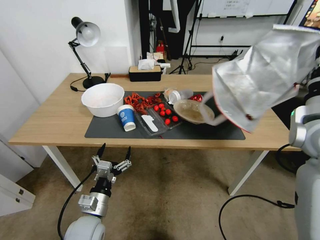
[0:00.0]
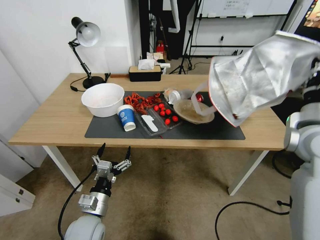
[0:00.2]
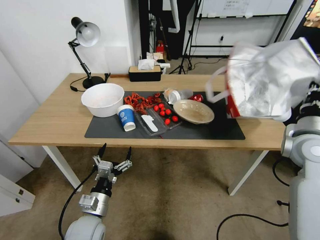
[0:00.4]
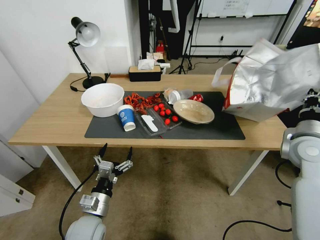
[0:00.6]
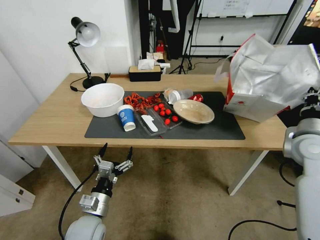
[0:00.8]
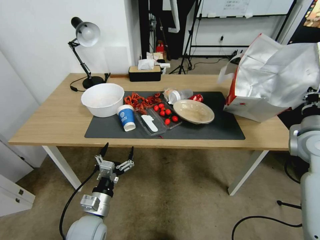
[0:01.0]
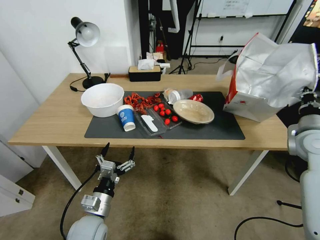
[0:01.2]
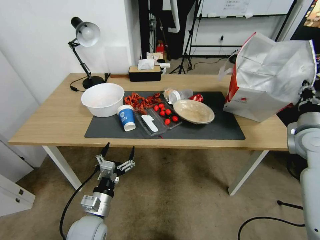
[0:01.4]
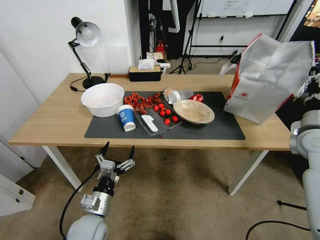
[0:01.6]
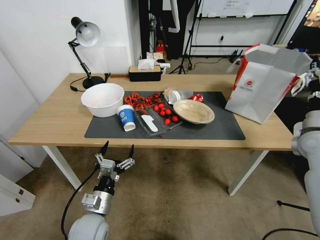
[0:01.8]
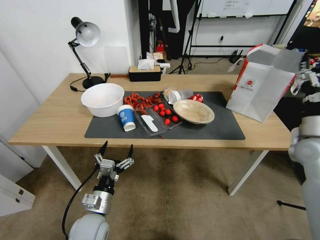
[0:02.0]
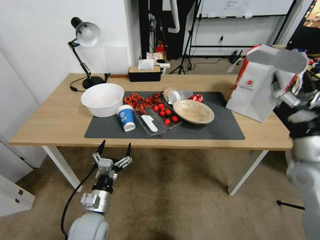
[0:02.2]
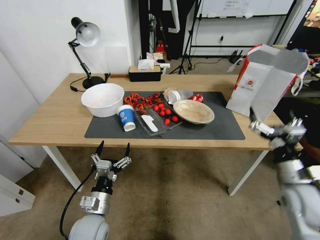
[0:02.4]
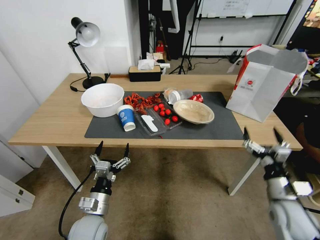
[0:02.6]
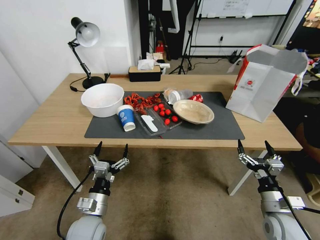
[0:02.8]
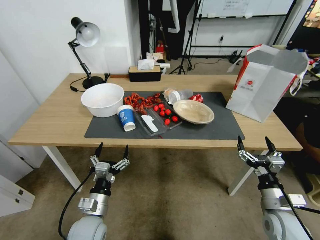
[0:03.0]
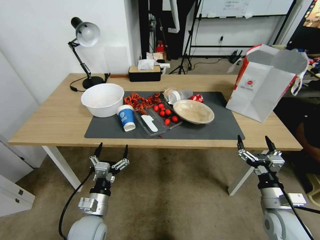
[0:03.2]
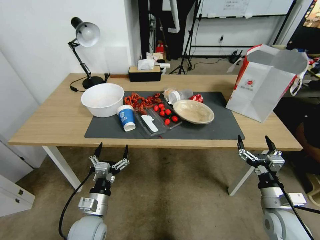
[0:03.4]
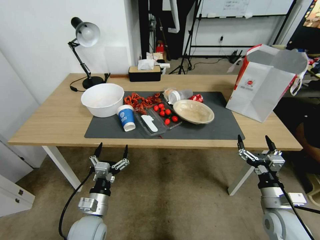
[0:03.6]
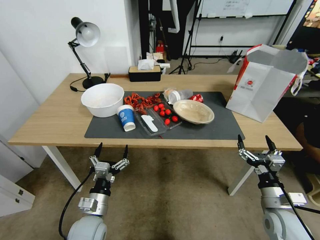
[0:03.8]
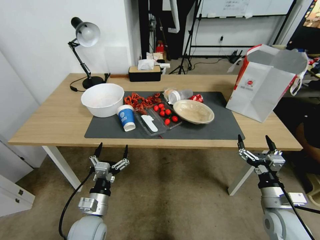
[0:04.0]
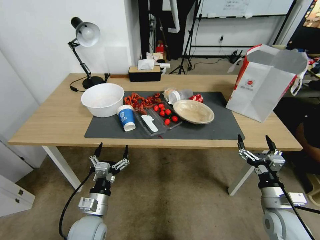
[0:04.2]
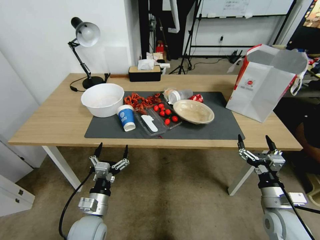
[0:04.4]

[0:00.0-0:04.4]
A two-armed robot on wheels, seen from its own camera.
Task of the whole recording: Pick up the food delivery bag from the floor and place it on the table.
0:00.0 to 0:01.4: The right gripper shifts roughly 10 cm downward and to the right.
0:01.4 to 0:03.0: The right gripper travels downward, backward and to the left by approximately 25 cm, and opens up.
0:03.0 to 0:04.4: The two grippers keep their place.

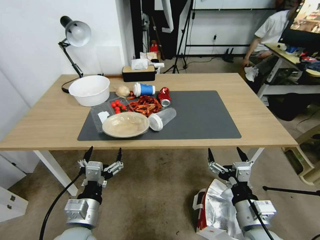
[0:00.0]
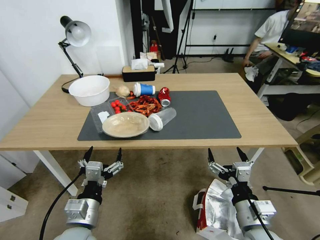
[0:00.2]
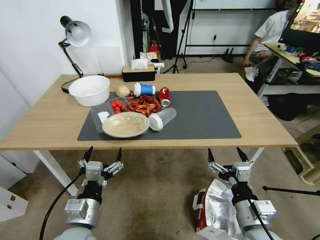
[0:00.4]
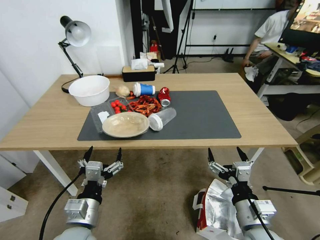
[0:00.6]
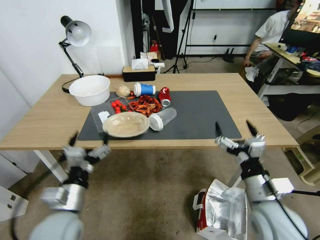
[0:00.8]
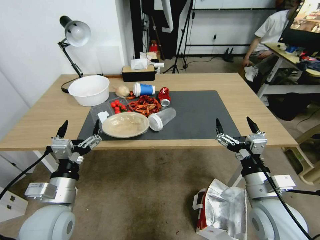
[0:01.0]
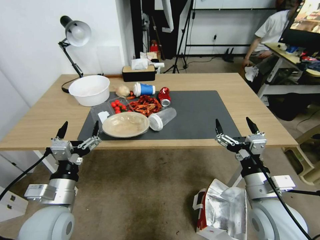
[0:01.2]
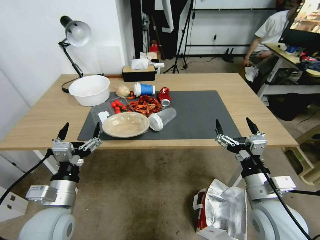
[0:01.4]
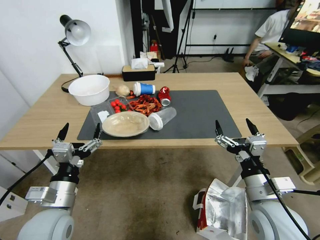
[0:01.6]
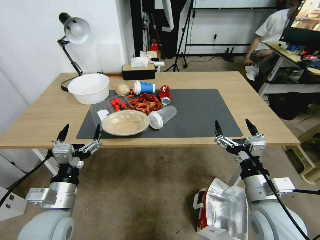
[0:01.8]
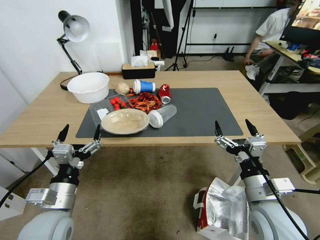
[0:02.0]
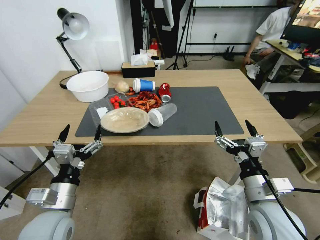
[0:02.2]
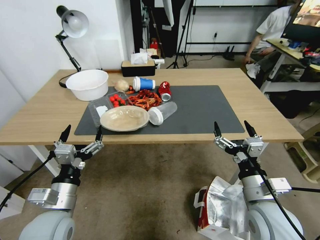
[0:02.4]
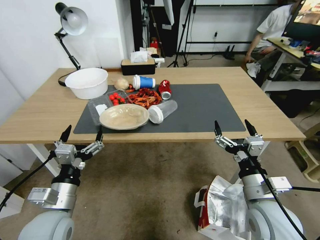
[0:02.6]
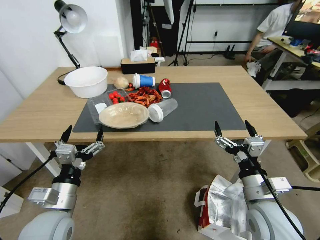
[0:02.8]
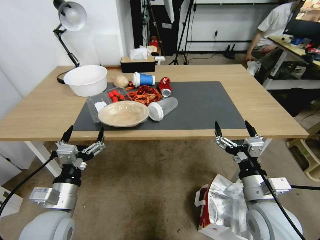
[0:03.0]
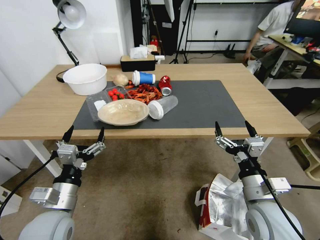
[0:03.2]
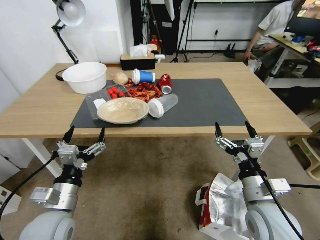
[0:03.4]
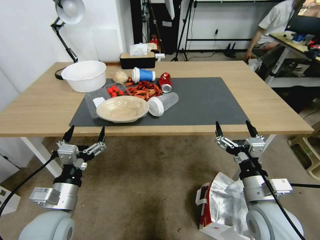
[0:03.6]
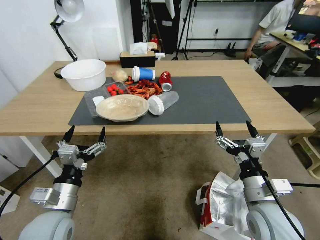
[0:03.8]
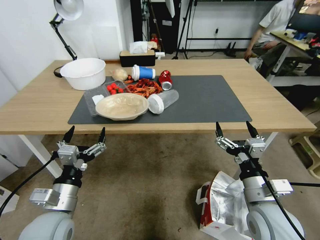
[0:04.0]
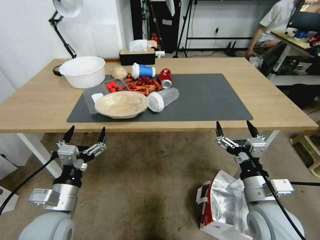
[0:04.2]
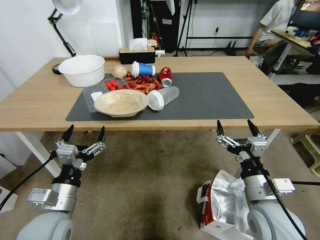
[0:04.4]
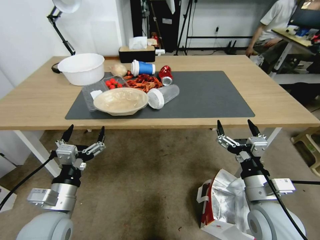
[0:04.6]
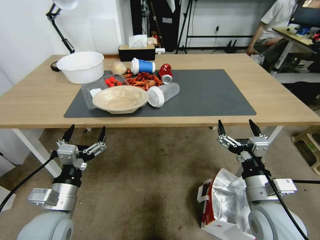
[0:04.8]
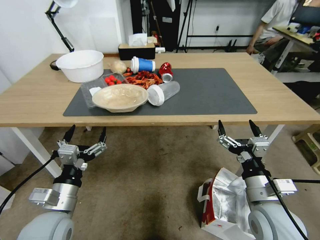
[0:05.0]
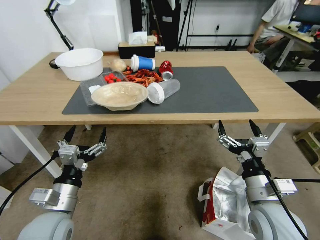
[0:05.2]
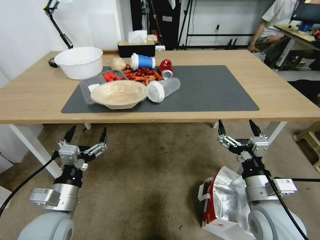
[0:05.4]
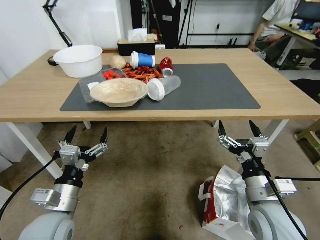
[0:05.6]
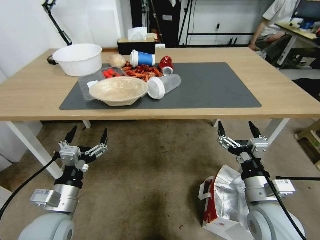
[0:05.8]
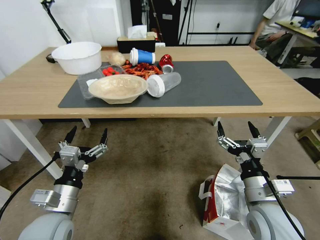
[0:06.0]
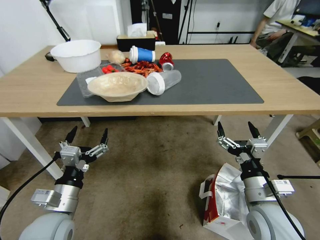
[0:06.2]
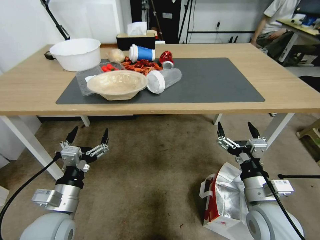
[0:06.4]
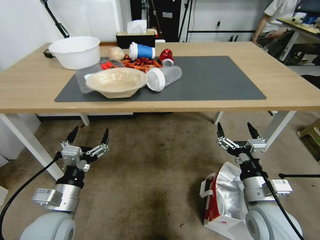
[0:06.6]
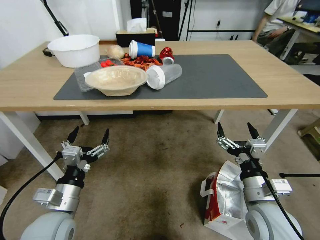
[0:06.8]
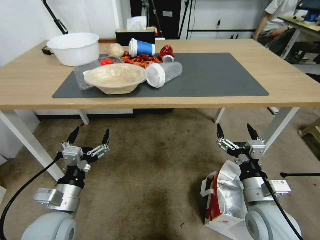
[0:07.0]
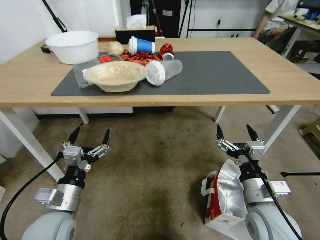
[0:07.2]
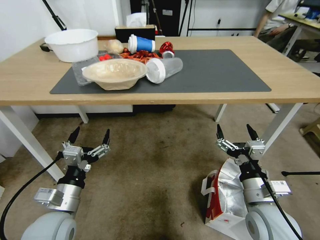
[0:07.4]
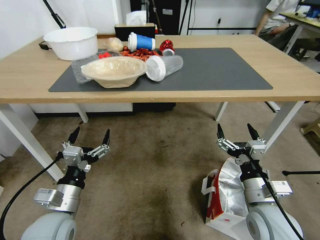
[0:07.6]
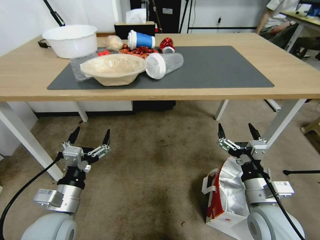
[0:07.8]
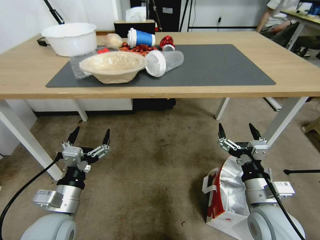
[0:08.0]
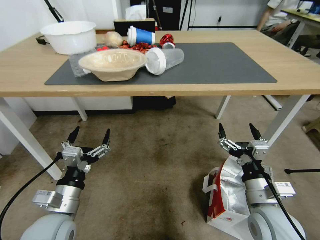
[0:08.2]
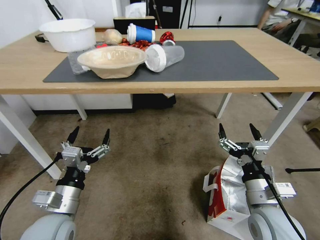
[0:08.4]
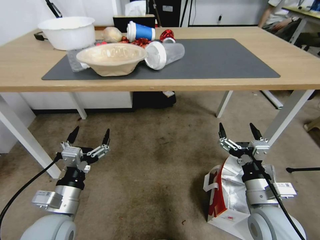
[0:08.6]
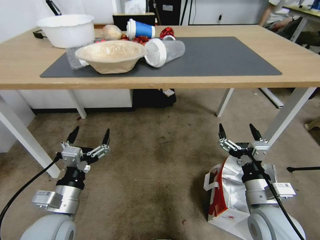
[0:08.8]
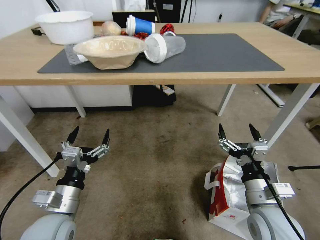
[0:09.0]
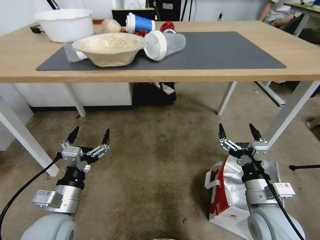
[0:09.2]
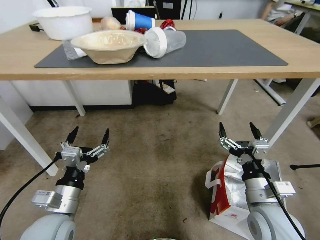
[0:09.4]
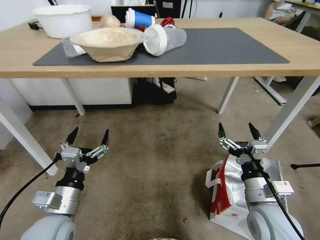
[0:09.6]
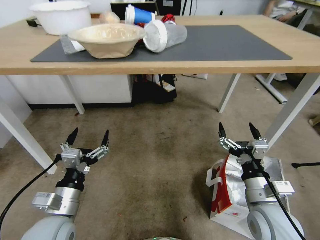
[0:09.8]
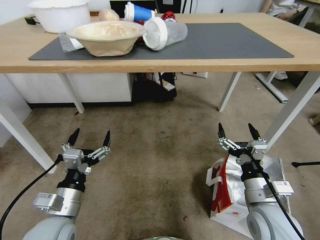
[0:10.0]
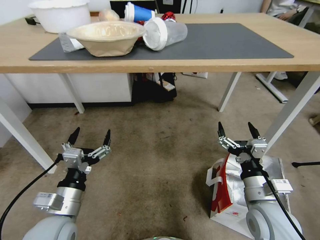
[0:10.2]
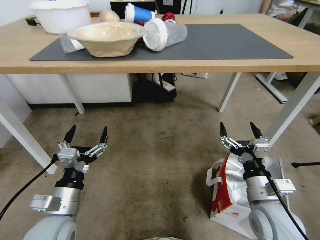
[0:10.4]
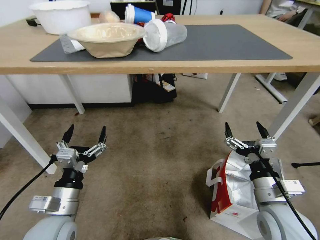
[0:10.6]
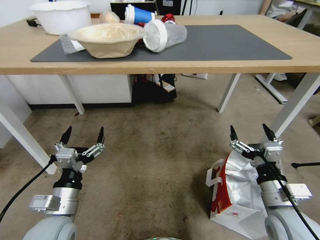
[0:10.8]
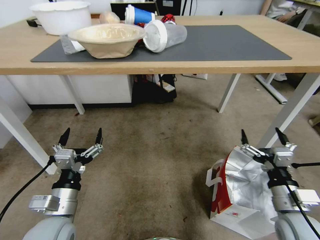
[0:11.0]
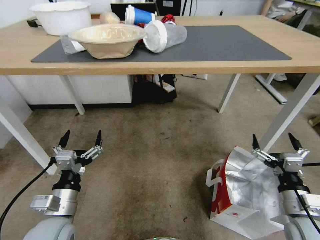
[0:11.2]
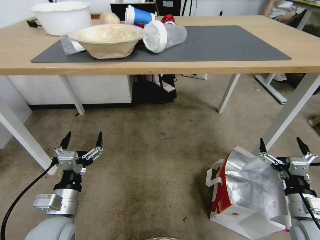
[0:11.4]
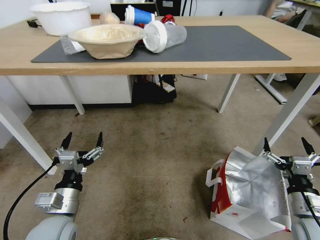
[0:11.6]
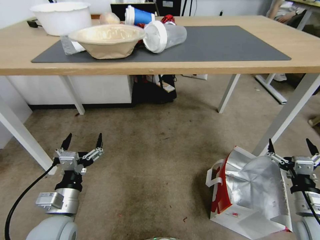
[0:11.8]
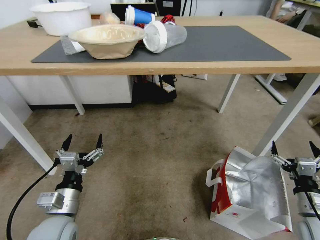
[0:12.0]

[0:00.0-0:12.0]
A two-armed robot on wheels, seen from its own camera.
Task of the whole recording: Pick up the food delivery bag from the floor and place it on the table.
0:10.4 to 0:12.0: The right gripper travels to the right and downward by some 15 cm.

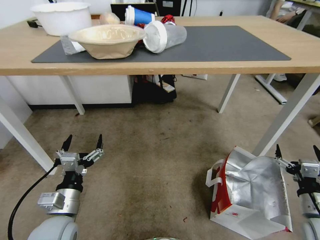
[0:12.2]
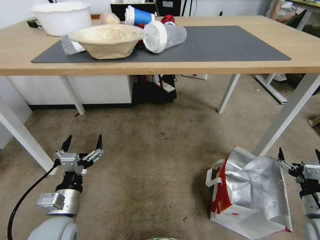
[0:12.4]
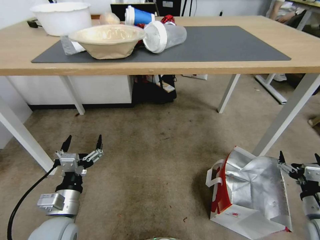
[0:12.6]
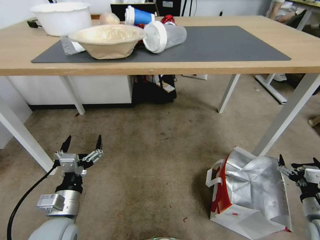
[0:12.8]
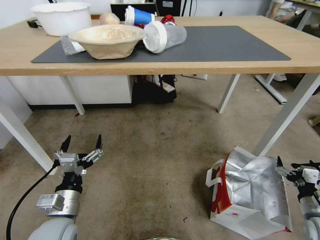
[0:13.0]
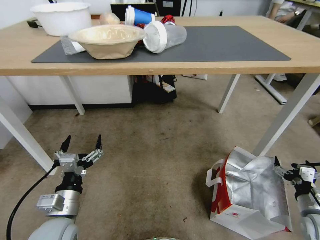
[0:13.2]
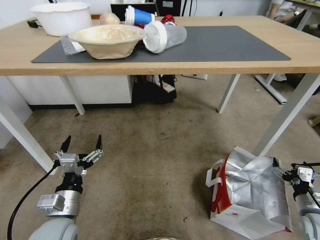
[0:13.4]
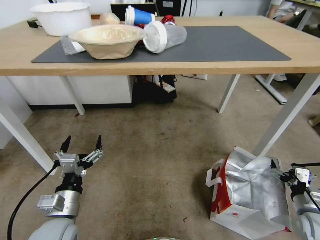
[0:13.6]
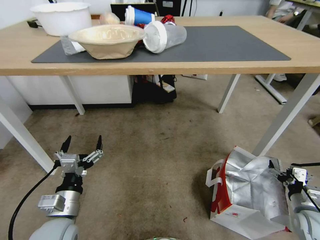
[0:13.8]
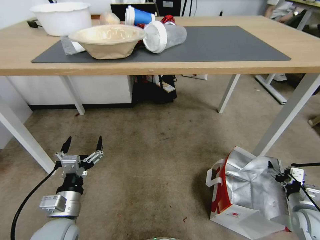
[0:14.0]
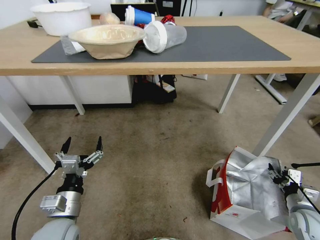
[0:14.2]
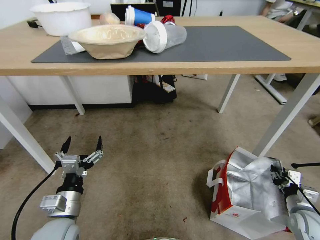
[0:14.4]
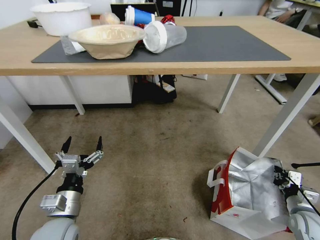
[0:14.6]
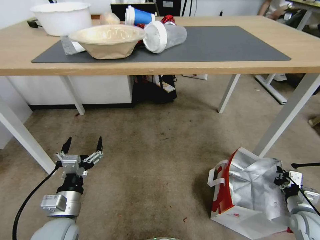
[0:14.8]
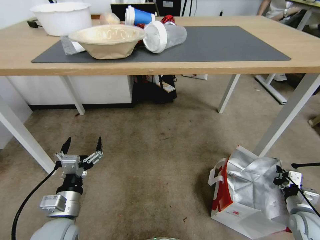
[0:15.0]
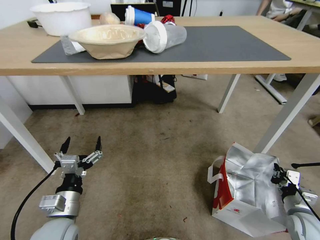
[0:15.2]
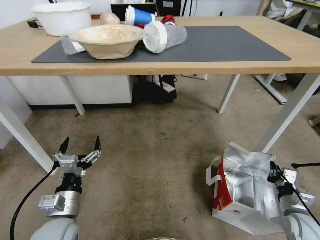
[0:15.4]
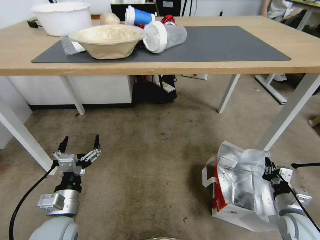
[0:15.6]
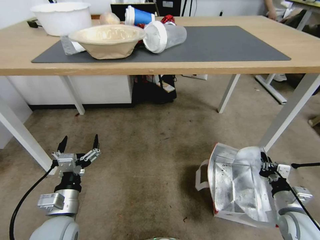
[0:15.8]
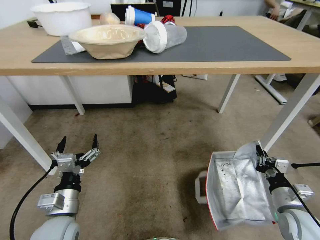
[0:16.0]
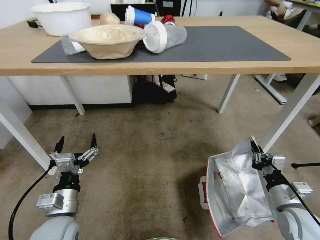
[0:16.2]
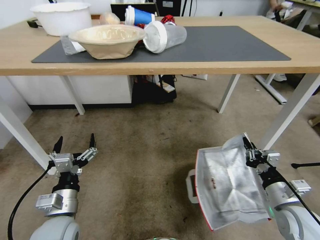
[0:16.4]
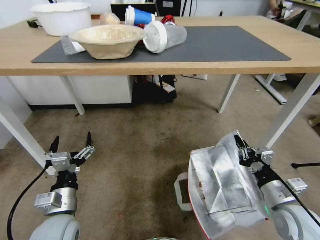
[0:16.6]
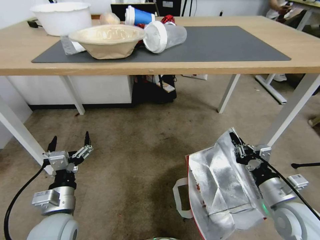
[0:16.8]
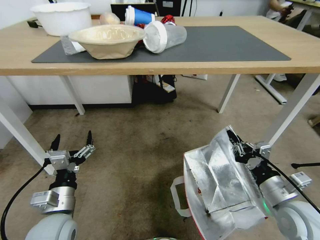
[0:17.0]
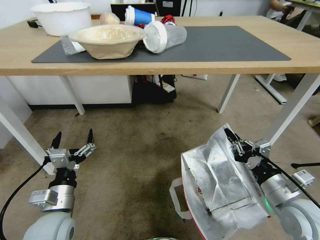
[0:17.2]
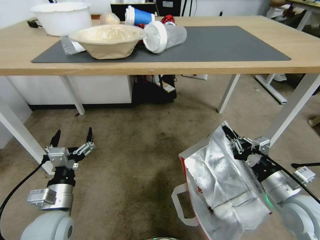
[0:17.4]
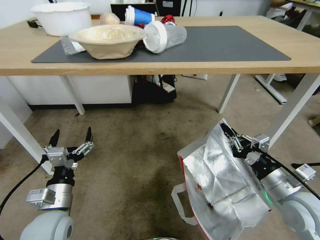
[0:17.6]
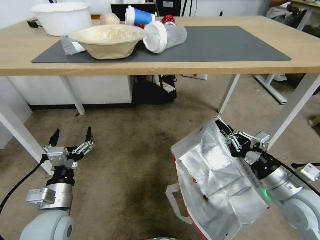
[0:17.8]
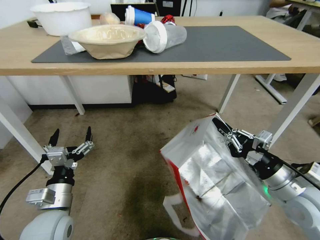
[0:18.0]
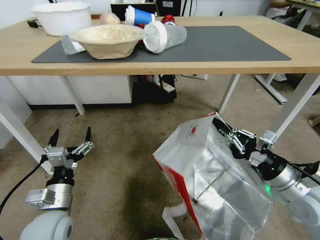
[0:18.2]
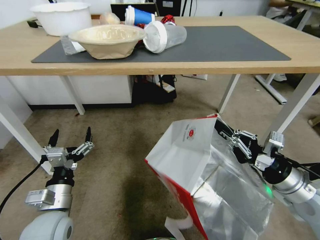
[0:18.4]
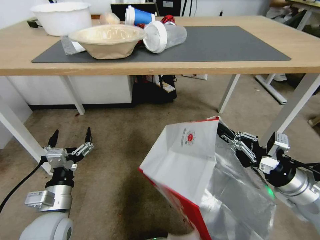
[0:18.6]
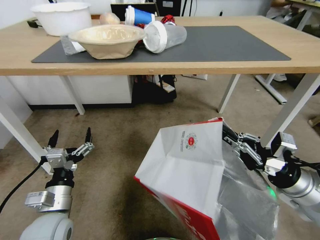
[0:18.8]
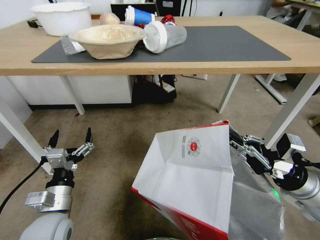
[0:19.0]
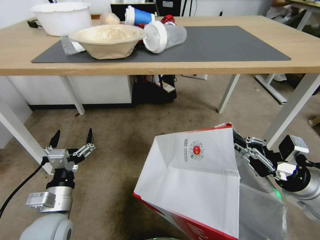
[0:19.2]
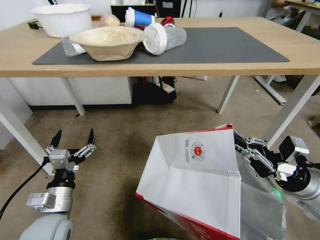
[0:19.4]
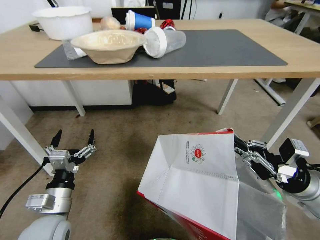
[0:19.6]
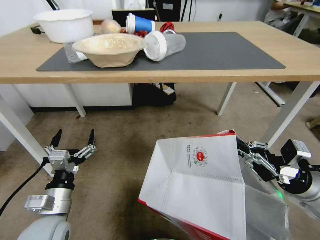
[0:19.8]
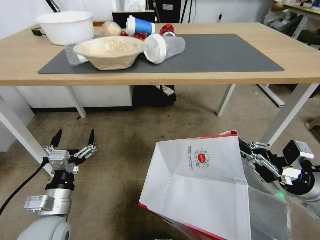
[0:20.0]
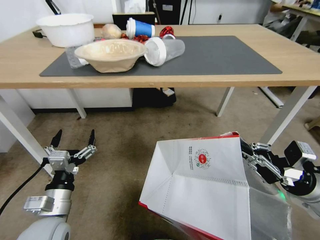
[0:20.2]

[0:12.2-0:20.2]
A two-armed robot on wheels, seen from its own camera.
Task of the whole recording: Pick up the food delivery bag from the floor and place it on the table.
0:12.2 to 0:13.8: The right gripper moves downward, approximately 5 cm.
0:13.8 to 0:15.4: The right gripper closes its fingers.
0:15.4 to 0:17.0: The right gripper shifts approximately 15 cm upward and to the left.
0:17.0 to 0:18.6: The right gripper travels upward by roughly 5 cm.
